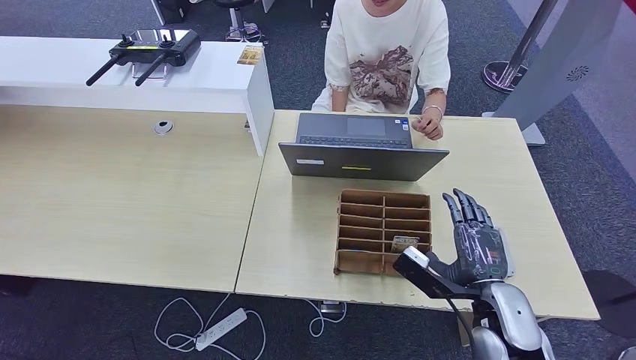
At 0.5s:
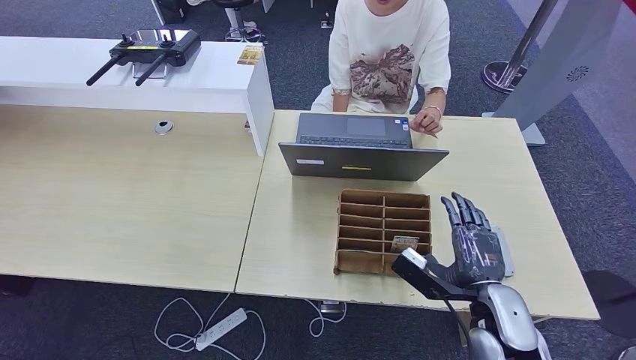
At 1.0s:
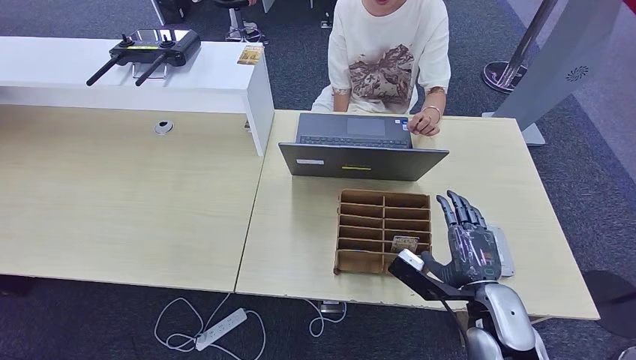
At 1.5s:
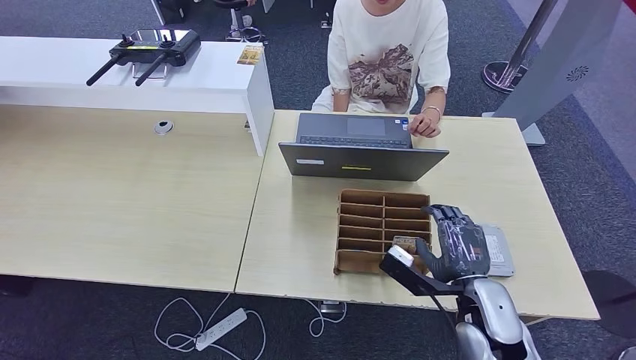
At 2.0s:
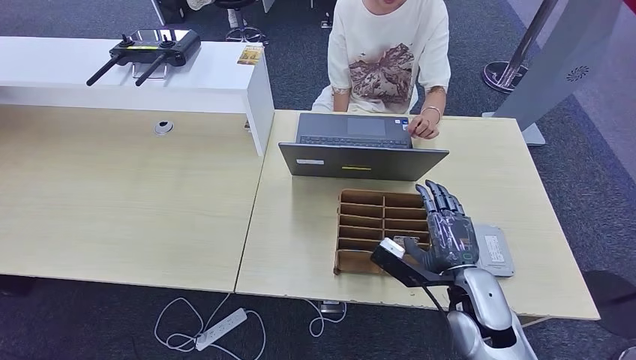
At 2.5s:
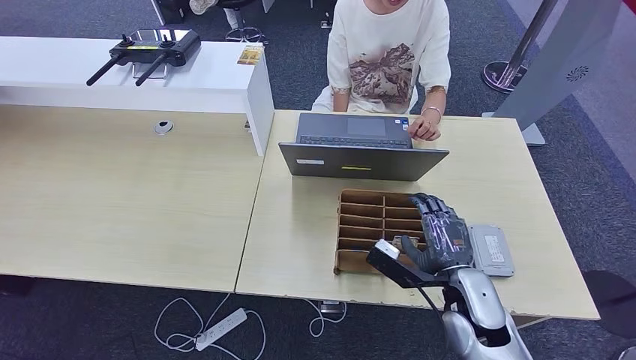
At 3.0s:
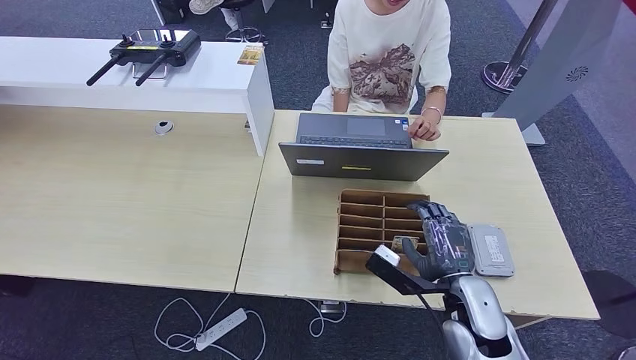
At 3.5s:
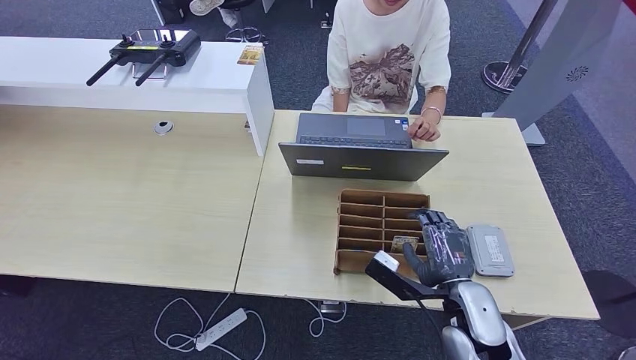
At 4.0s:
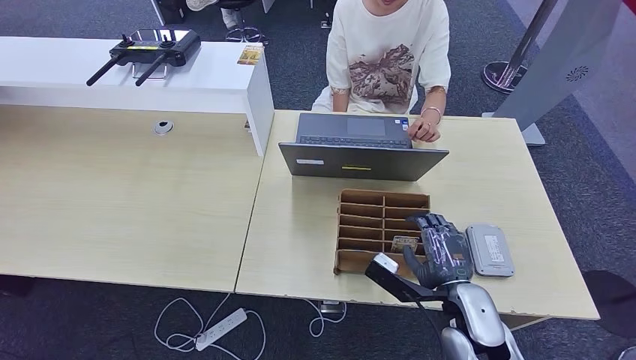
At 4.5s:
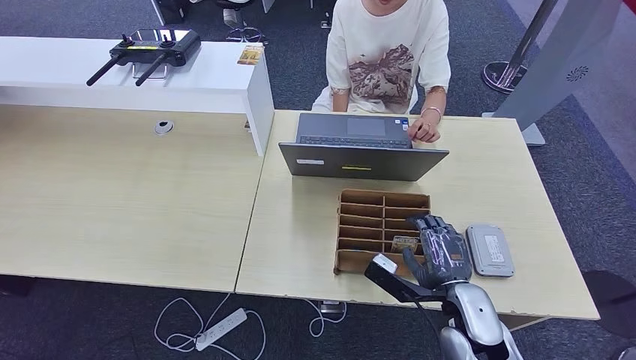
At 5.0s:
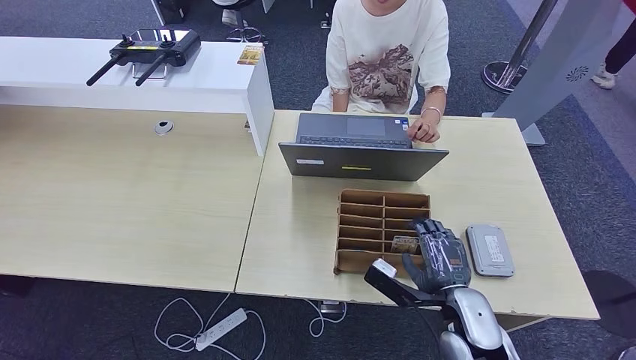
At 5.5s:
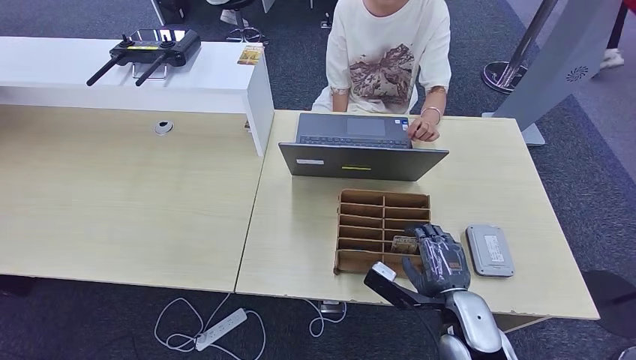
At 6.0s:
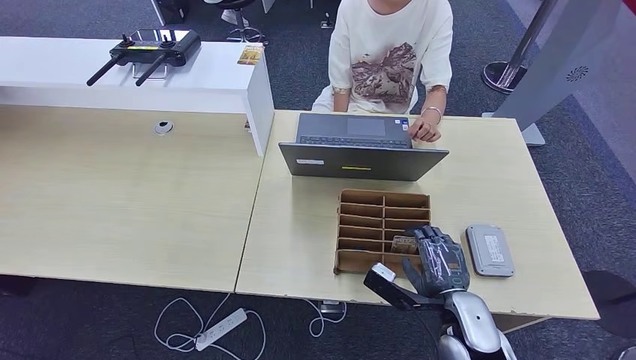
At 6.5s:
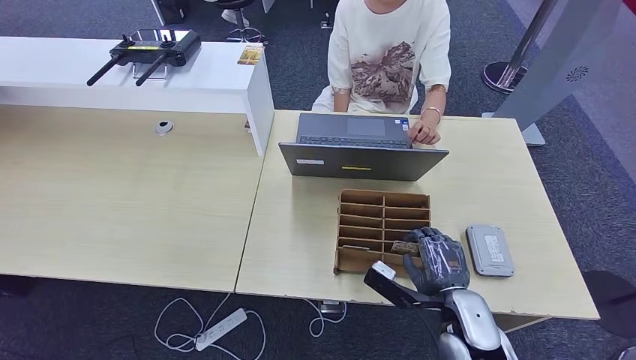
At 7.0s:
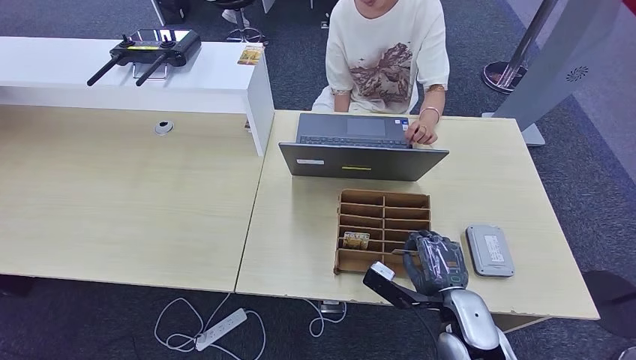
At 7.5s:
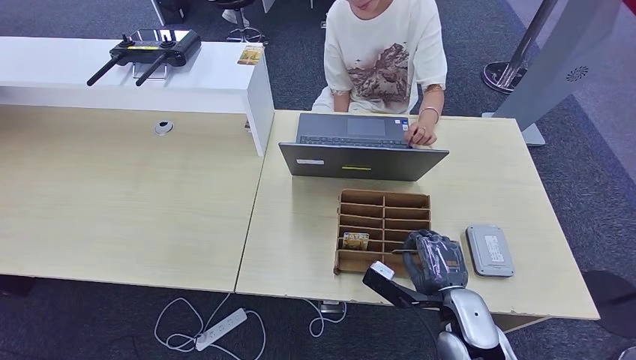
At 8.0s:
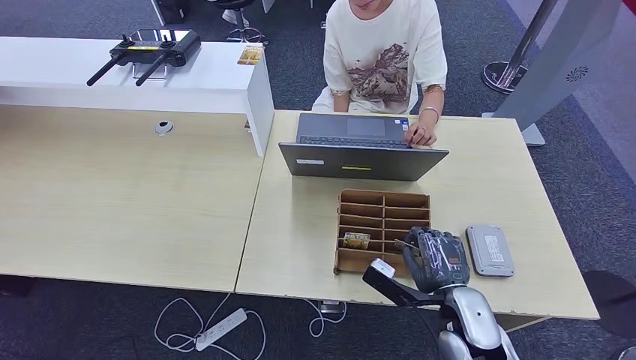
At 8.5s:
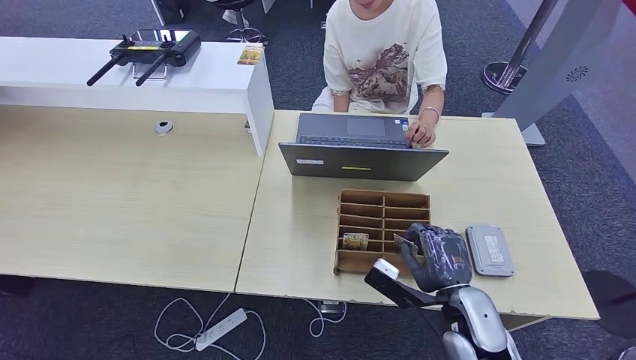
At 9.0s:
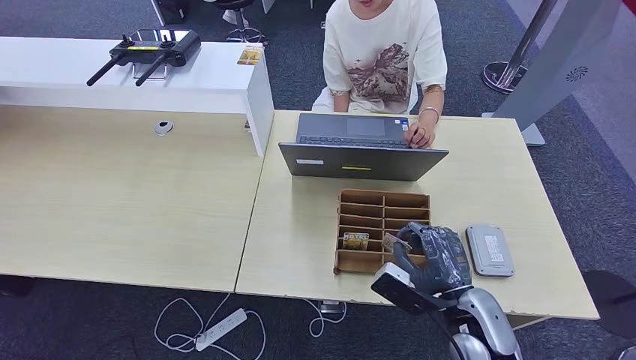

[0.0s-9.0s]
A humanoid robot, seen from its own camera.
0.0s to 7.0s: The hands make only small movements.

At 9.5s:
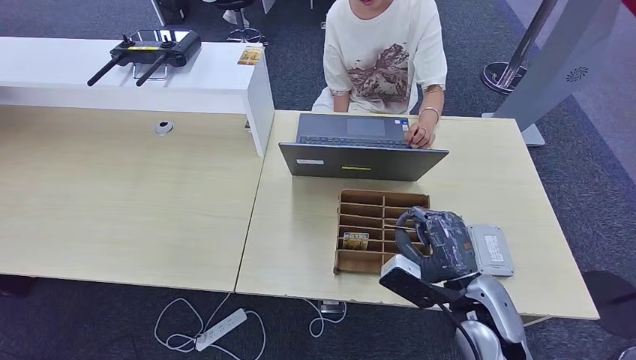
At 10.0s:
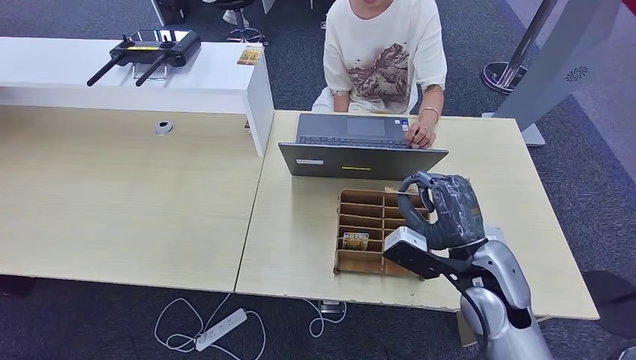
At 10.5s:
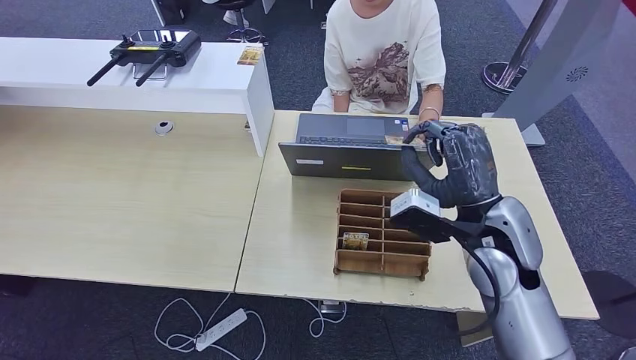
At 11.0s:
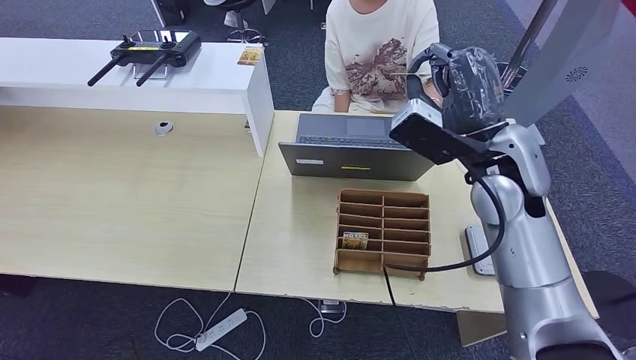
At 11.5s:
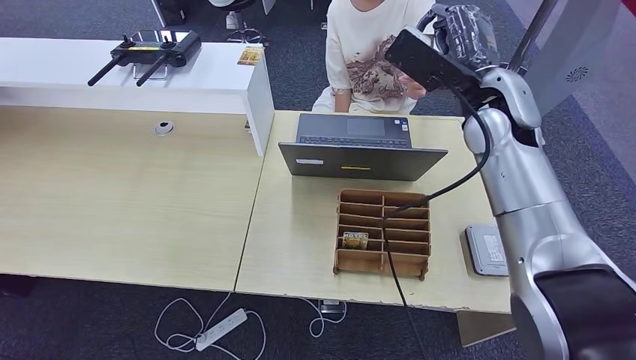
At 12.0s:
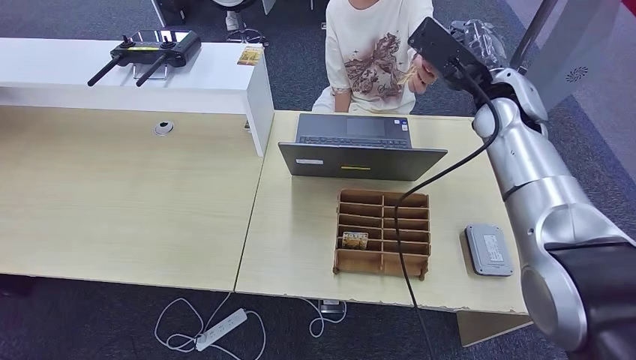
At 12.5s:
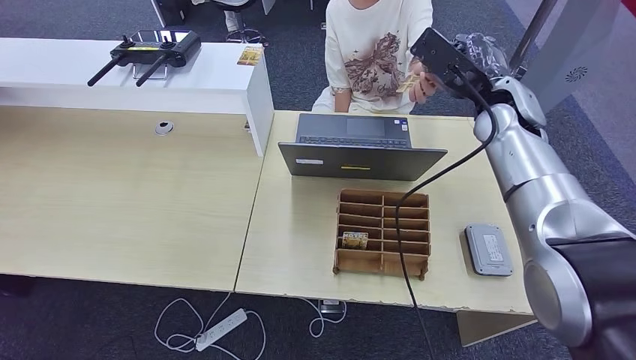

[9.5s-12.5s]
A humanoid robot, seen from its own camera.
Step, 9.5s to 12.5s: Hand the room key to the person.
9.5s to 11.0s: The right hand goes roughly 20 cm upward and forward.
11.0s to 12.5s: The right hand travels forward by some 10 cm.
